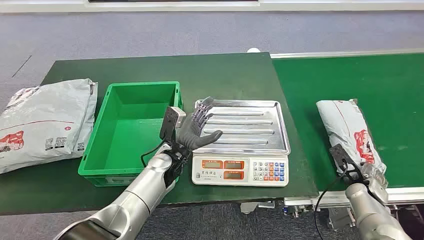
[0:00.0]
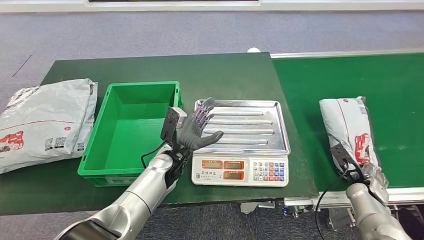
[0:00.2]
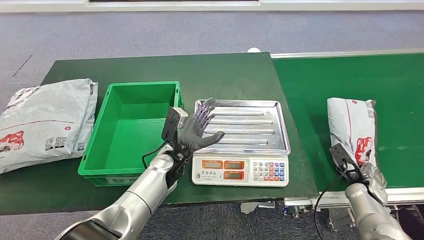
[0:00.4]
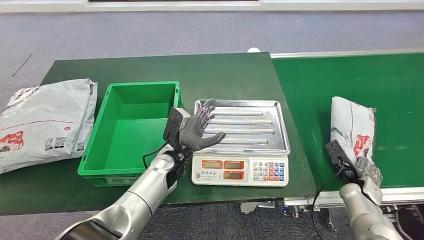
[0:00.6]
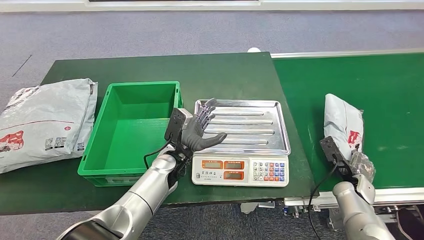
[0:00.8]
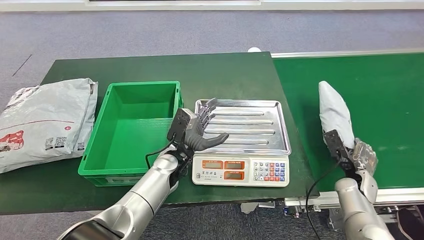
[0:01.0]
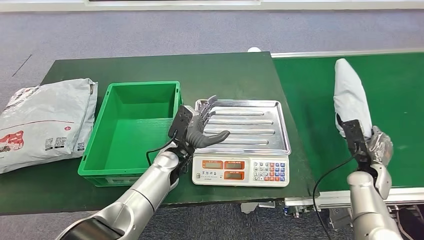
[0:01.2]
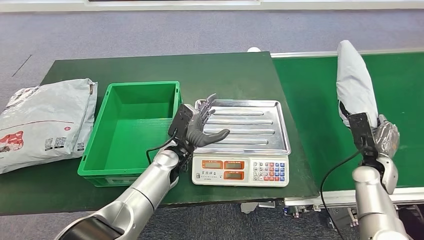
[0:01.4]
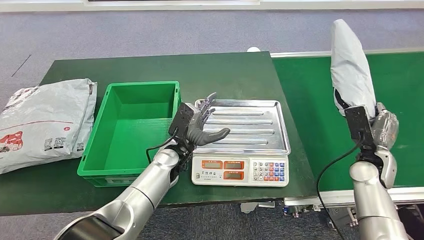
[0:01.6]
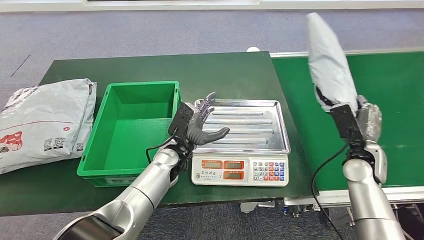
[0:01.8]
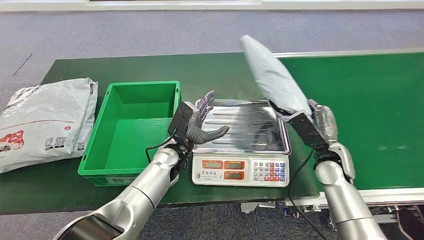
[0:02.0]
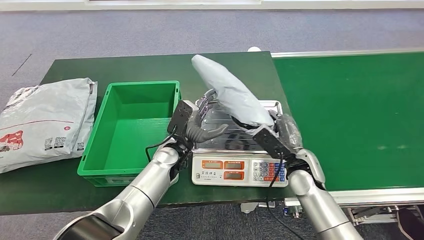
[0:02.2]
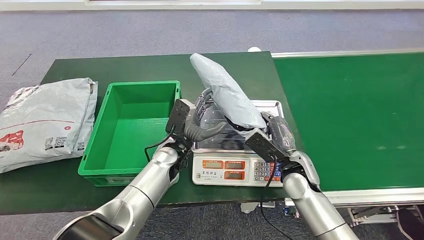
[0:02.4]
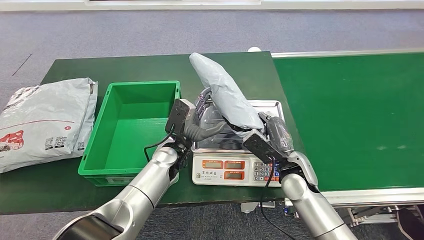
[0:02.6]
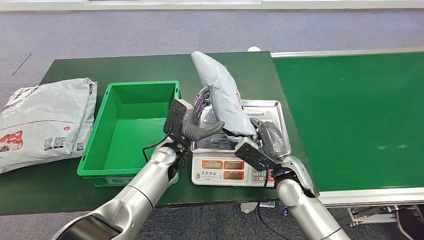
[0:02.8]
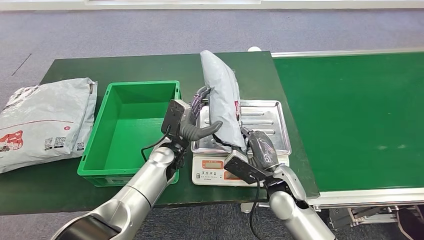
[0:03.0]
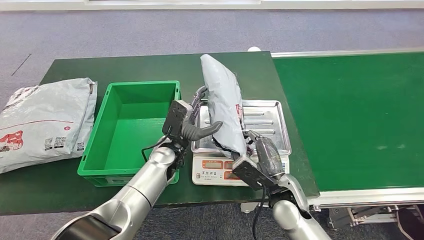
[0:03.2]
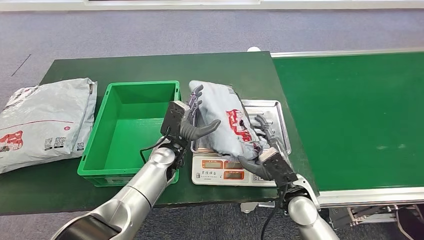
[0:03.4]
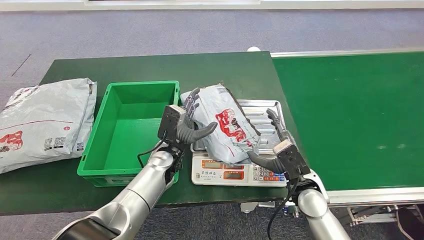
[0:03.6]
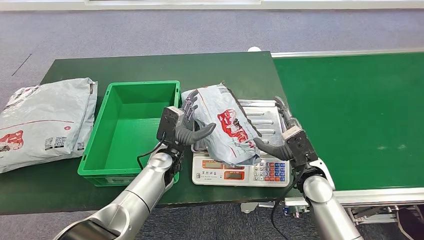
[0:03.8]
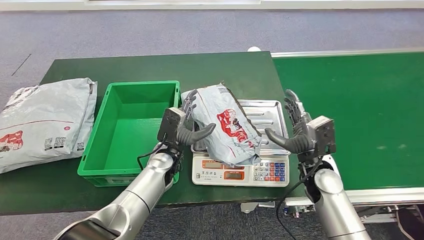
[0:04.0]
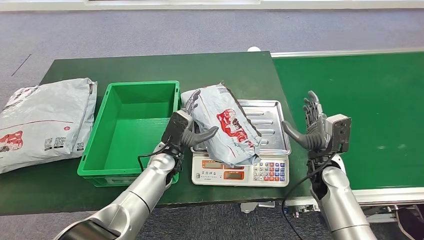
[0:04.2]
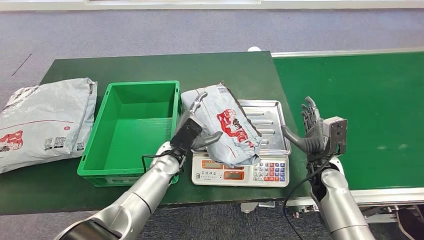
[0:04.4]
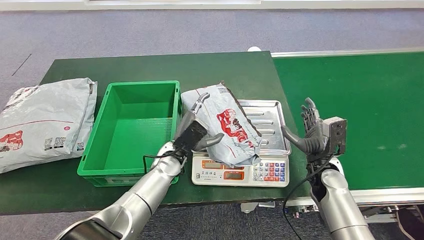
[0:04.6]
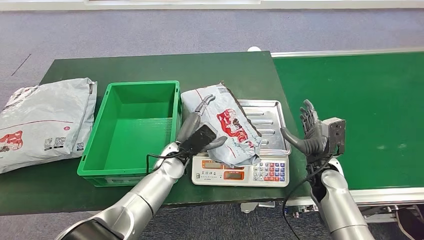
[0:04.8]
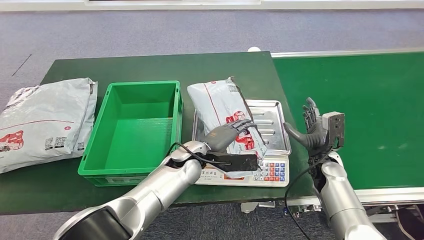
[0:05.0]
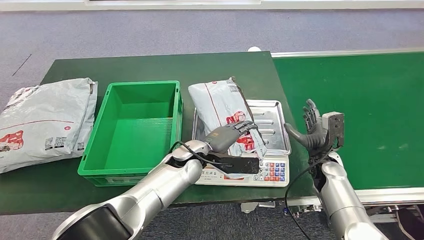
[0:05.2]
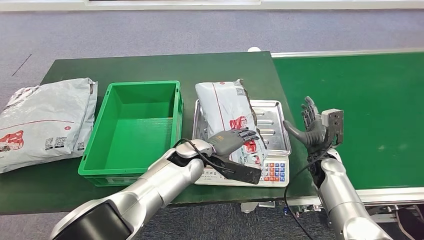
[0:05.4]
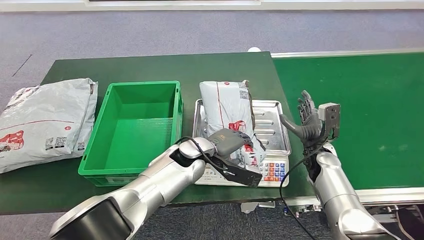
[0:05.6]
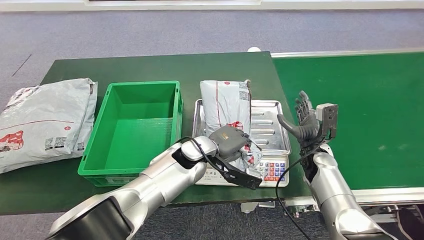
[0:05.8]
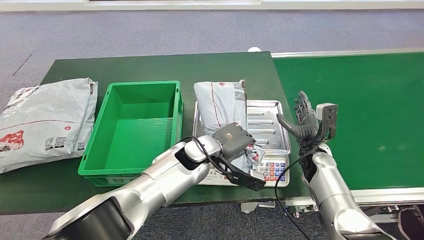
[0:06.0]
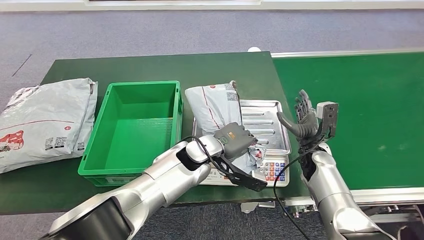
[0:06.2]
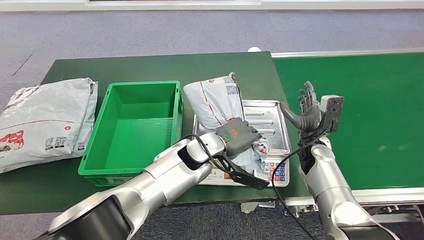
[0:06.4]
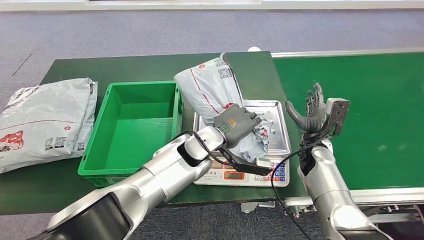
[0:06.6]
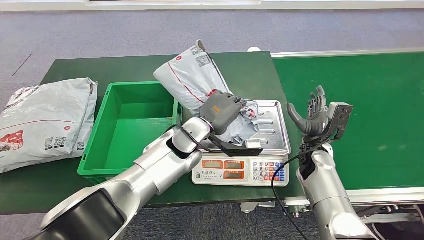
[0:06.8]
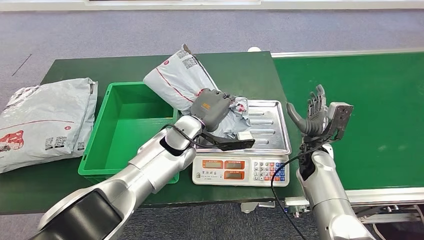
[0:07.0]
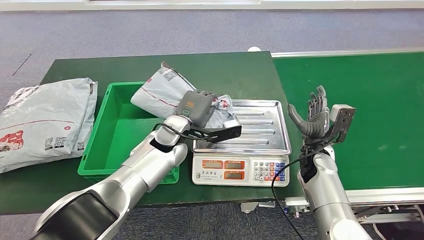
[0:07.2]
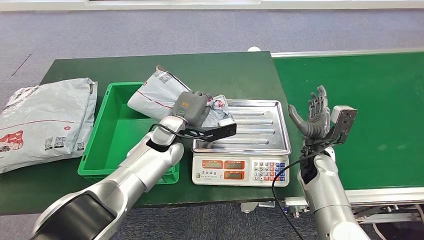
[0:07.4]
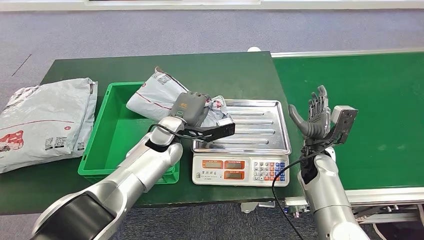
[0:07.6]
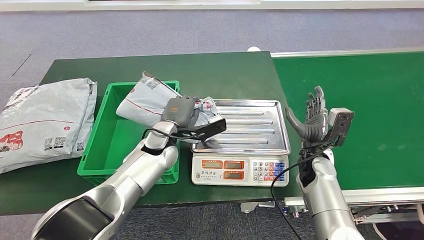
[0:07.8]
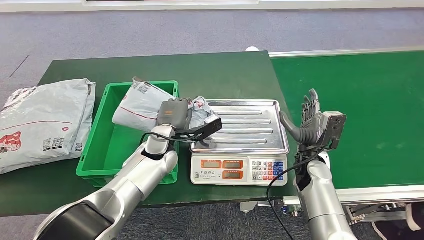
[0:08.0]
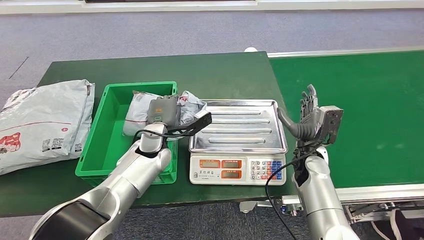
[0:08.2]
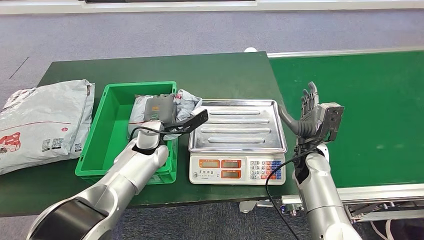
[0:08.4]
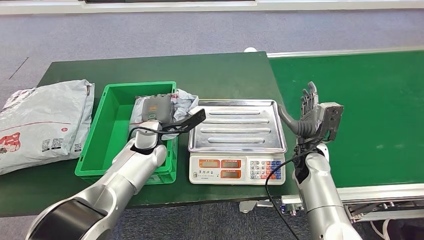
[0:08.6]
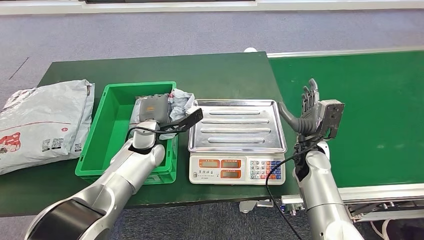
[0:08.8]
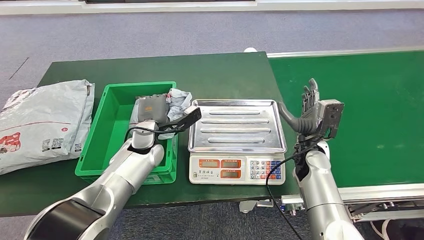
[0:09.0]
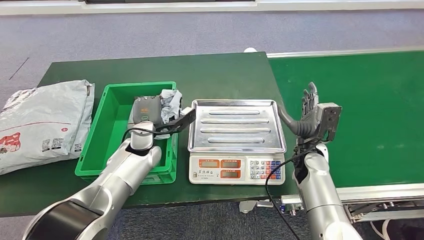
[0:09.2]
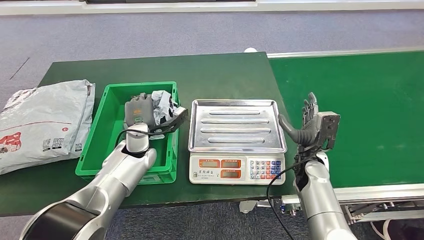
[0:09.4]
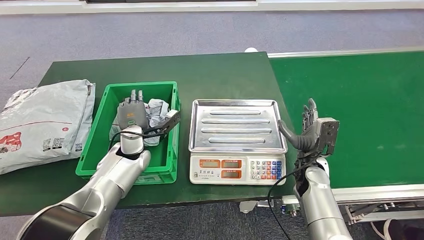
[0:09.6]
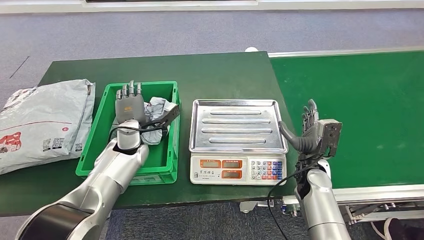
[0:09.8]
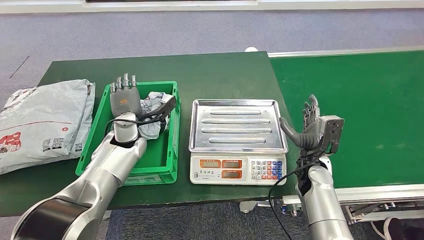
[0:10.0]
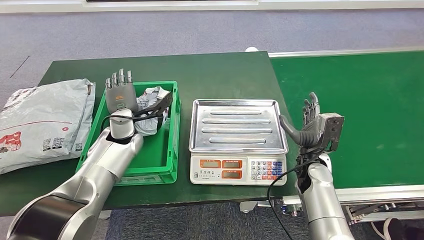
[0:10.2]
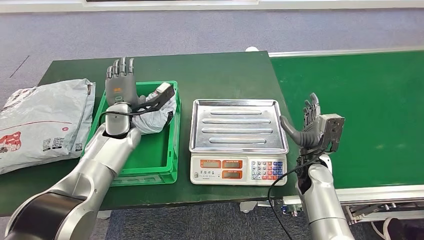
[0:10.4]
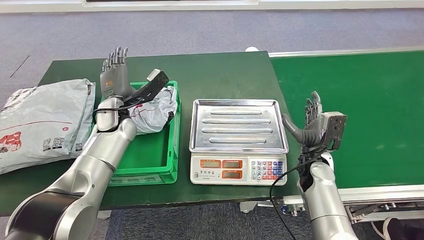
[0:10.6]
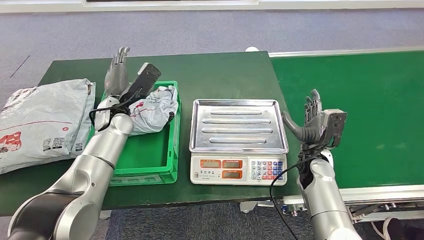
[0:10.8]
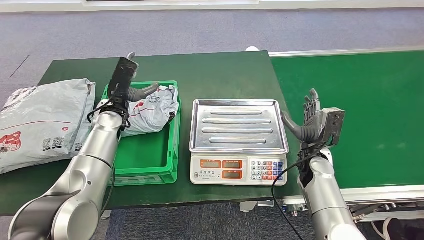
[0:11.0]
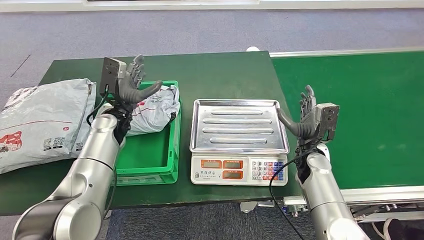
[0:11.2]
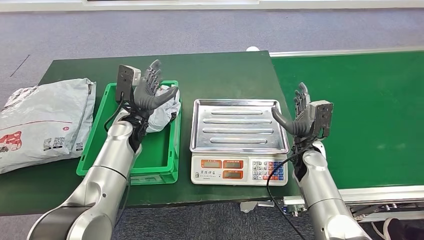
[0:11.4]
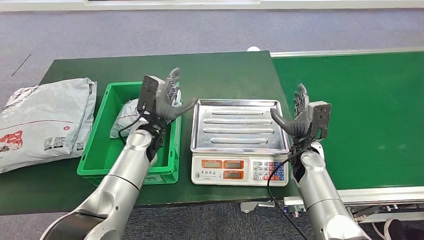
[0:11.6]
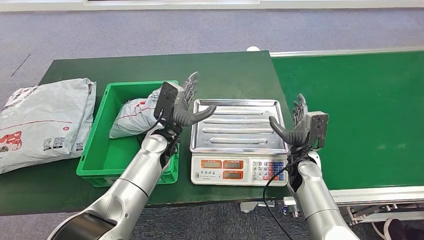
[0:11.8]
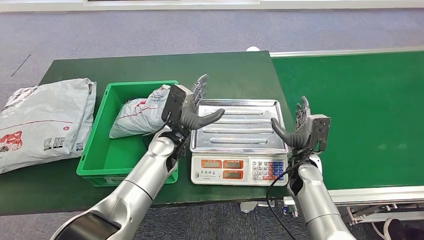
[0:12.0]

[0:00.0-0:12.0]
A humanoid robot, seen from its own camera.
Step, 0:00.0 to 0:01.8: Take the parcel off the conveyor belt.
Step, 0:02.0 to 0:04.8: Place the parcel onto the inbound machine.
Step, 0:06.2 to 0:07.4: Pick up the parcel from the inbound machine.
Step, 0:07.6 to 0:11.2: Put the parcel inside the courier box.
0:03.0 to 0:04.4: The right hand travels to the right by about 15 cm.
0:04.4 to 0:06.0: The left hand is displaced to the right and upward by about 10 cm.

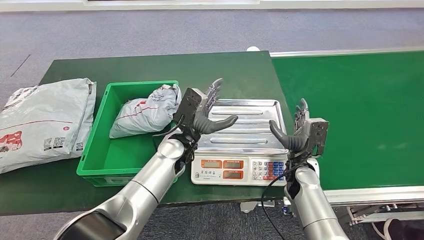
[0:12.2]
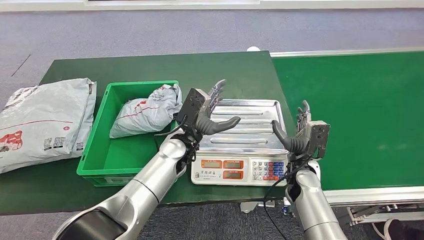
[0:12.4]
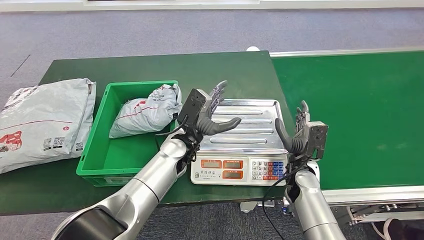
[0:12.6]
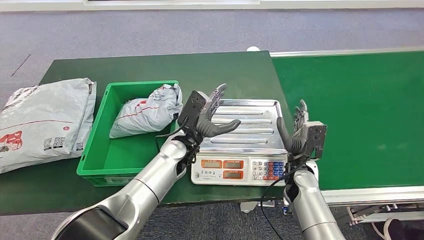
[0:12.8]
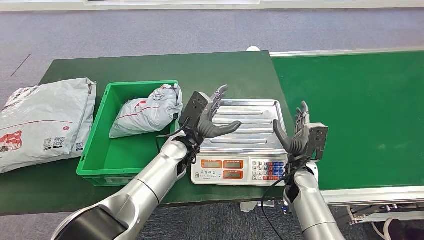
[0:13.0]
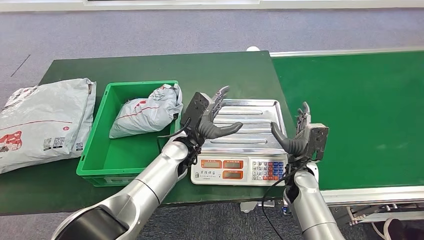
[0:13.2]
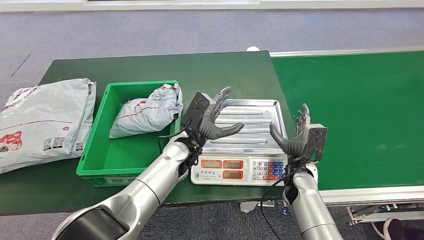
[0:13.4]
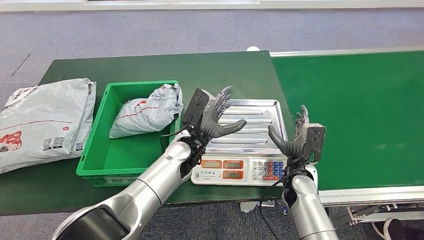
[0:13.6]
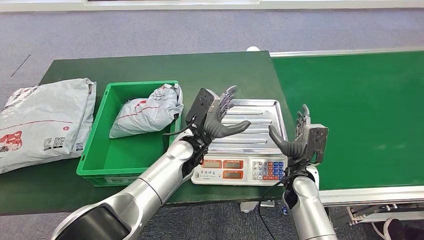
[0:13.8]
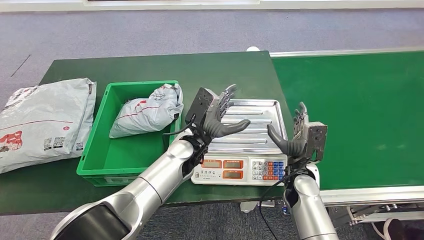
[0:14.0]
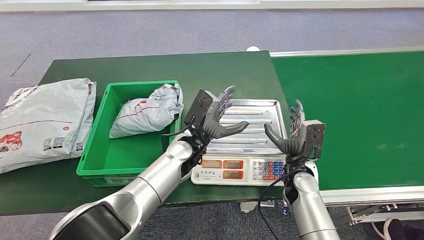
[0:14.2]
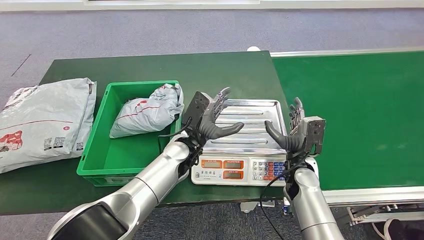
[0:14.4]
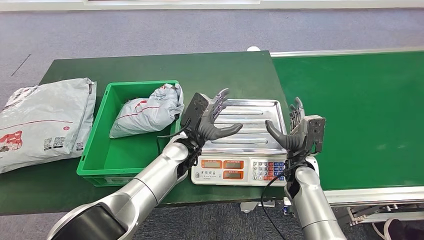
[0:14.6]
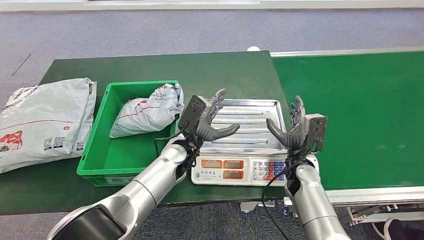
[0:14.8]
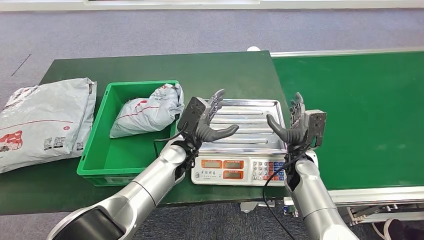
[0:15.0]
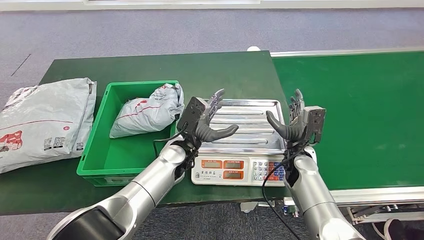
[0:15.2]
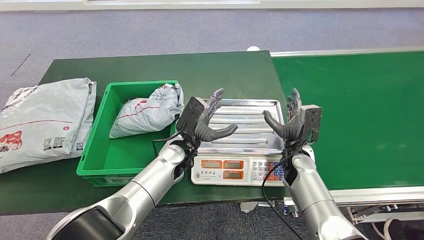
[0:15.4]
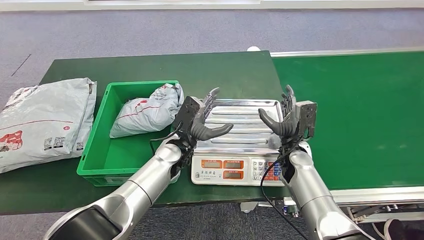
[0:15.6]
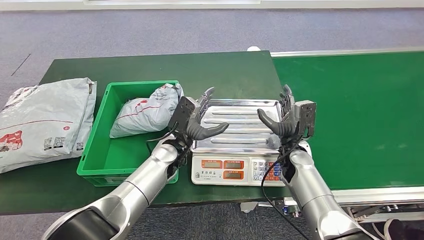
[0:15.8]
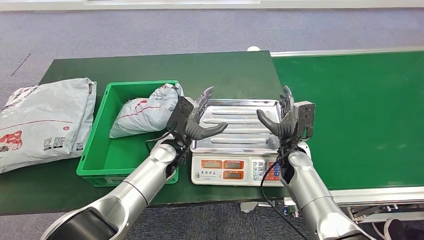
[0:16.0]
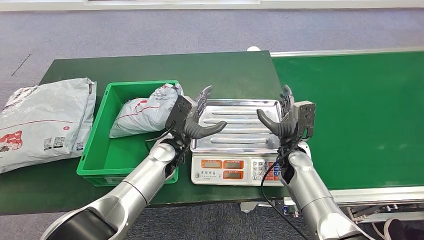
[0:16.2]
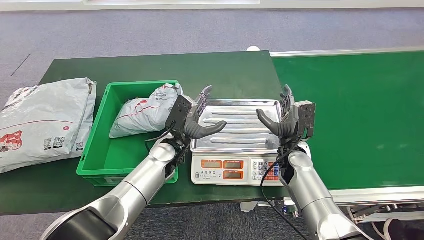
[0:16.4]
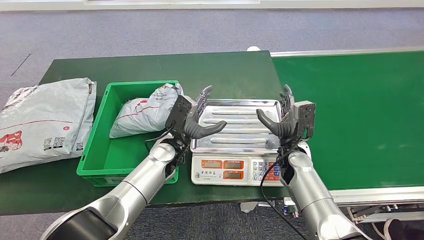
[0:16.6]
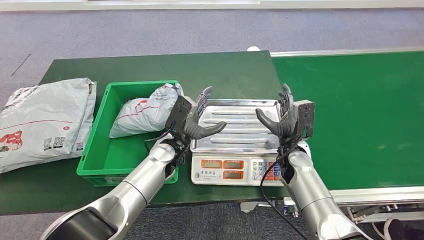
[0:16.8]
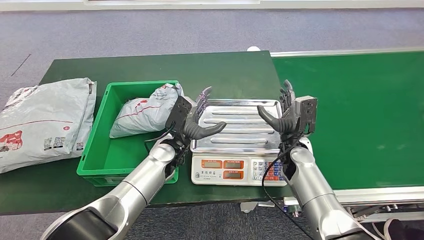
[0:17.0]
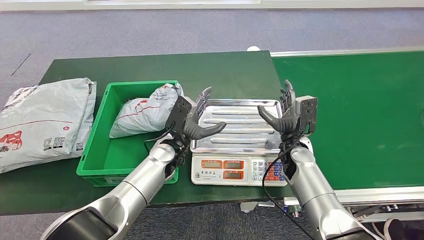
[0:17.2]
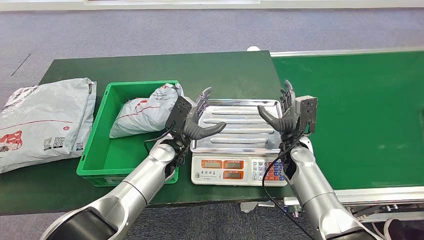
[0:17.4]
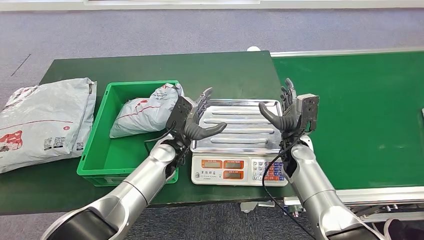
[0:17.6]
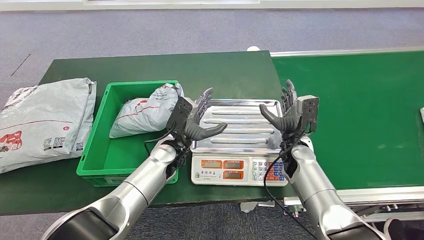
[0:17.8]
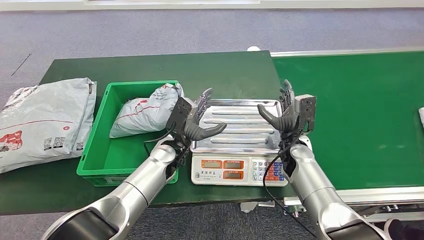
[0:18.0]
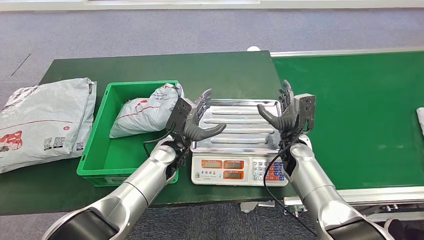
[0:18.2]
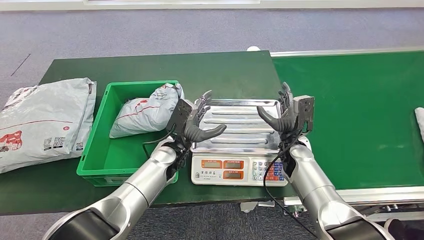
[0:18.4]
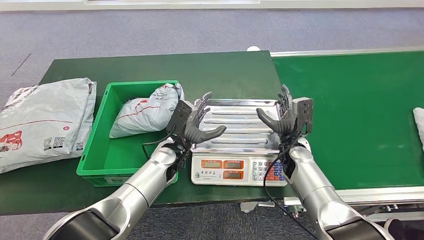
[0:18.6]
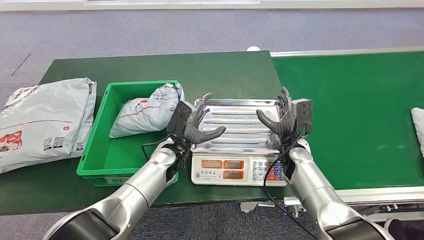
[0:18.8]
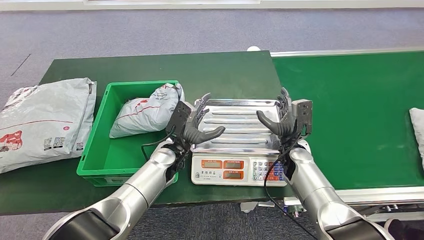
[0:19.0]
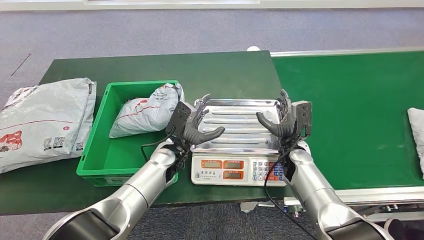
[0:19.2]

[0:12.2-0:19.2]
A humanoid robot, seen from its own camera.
0:12.2 to 0:19.2: The hands make only small movements.
